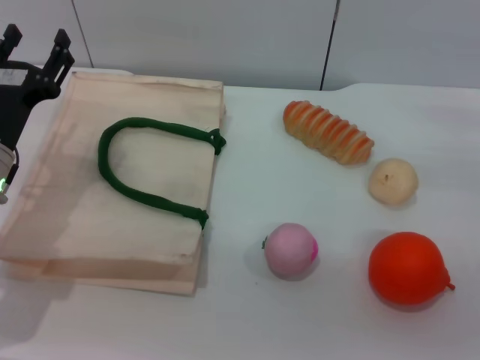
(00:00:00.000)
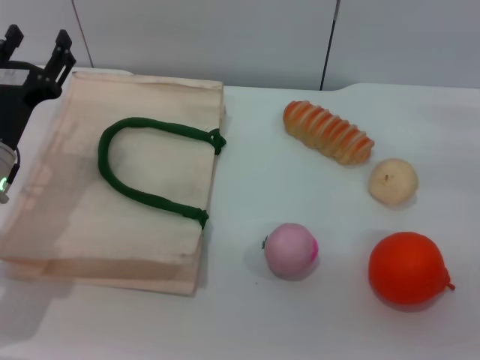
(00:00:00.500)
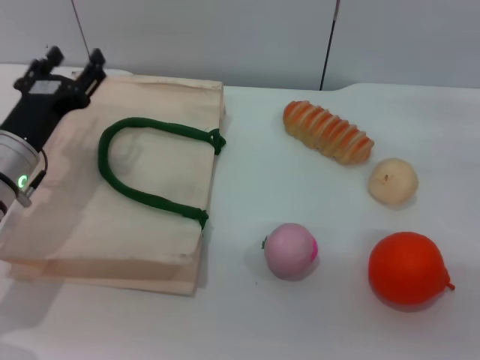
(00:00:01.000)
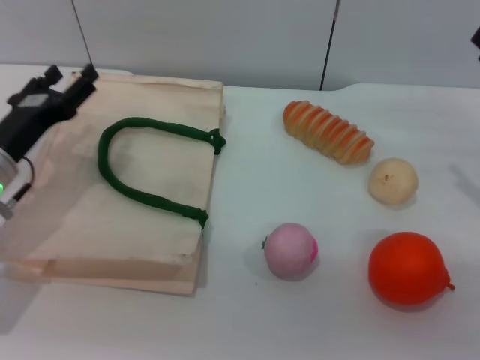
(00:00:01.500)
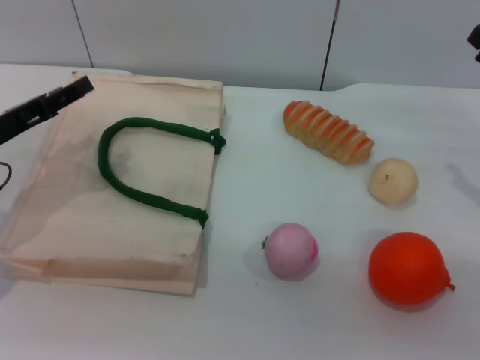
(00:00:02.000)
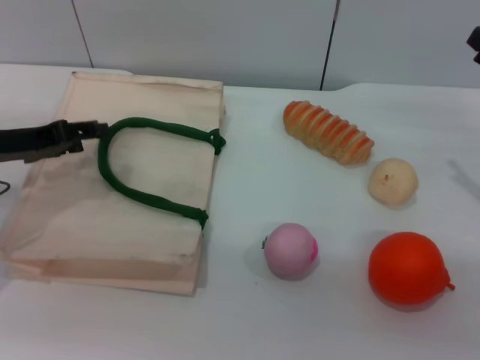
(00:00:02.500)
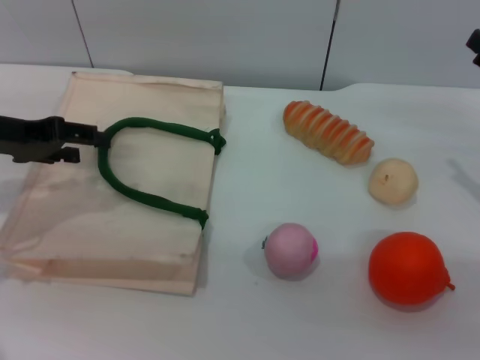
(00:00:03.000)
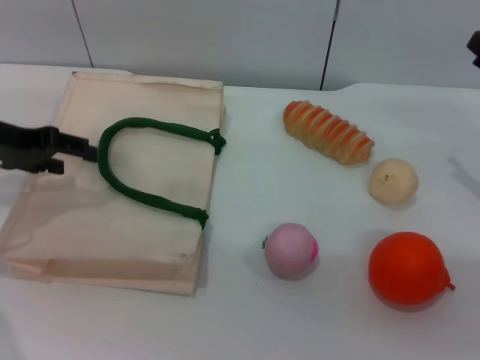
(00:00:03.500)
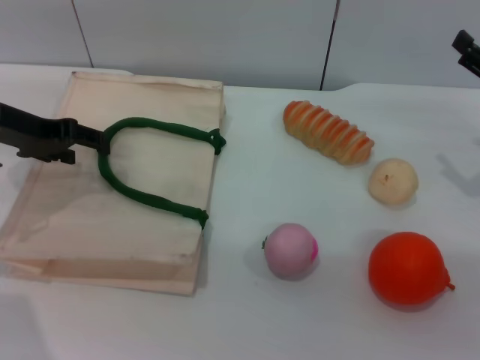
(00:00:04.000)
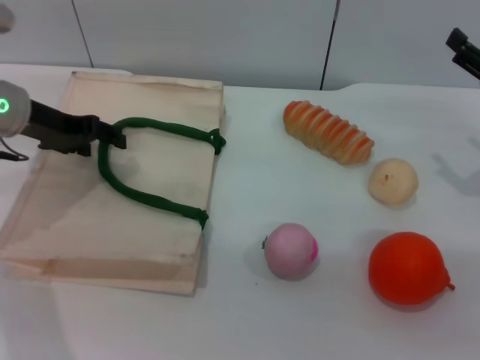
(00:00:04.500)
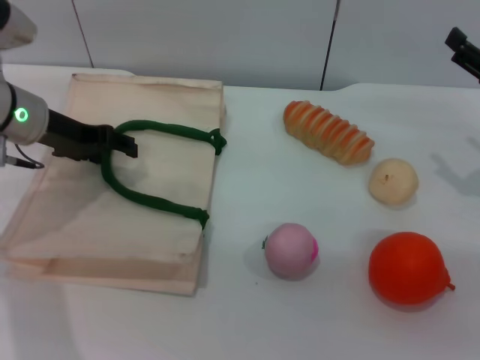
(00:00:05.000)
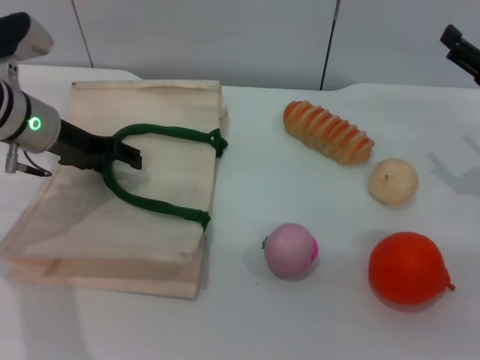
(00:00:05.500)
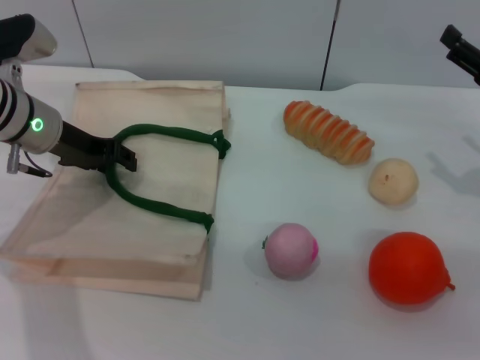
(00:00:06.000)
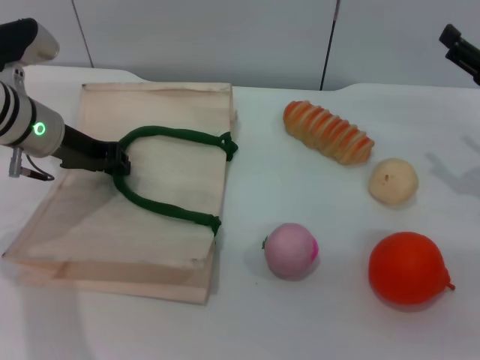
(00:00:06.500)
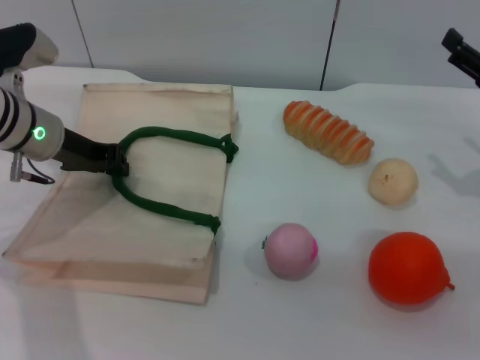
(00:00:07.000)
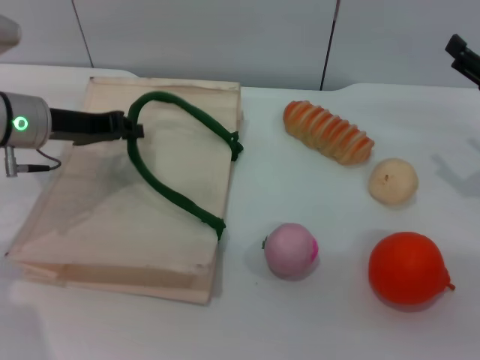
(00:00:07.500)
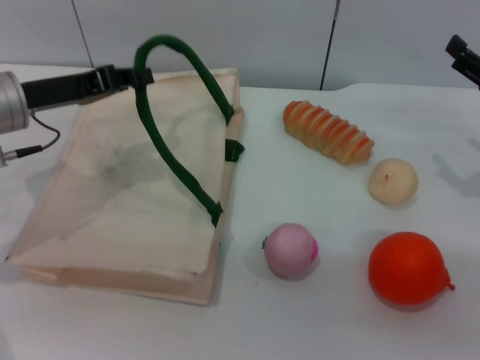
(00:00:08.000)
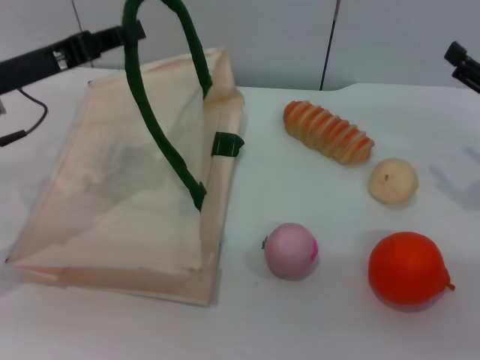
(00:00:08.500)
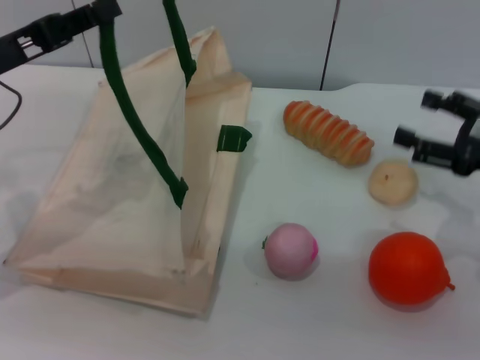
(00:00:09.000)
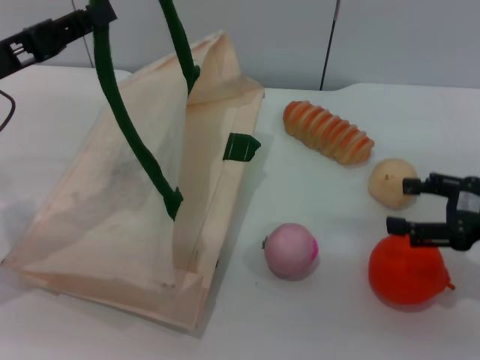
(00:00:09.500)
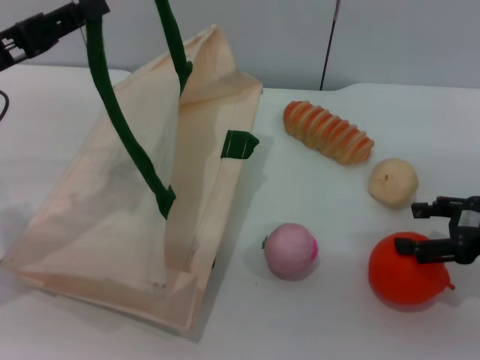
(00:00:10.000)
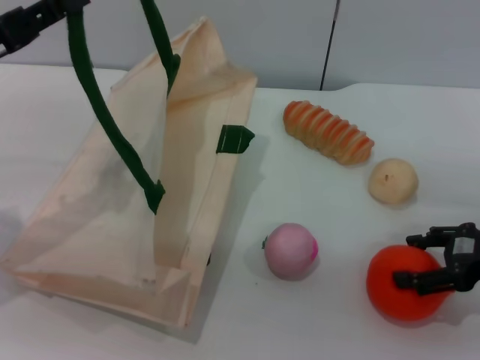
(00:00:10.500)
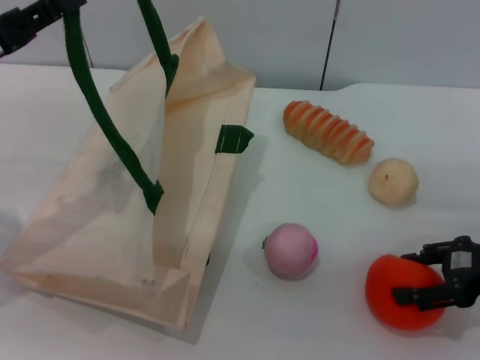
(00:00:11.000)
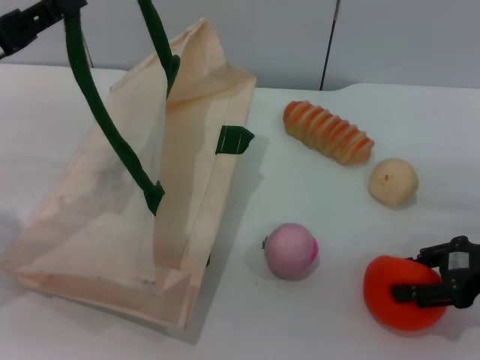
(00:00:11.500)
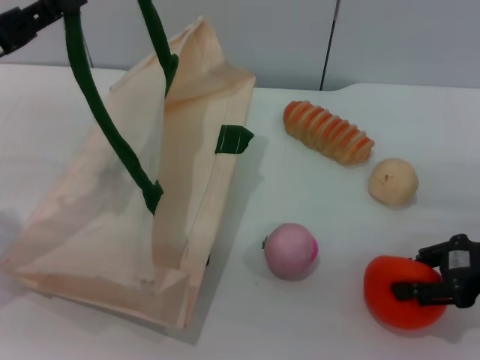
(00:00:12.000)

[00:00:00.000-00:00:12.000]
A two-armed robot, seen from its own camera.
Task of the whole recording: pick up the orange and peach from the table and place it in the white handbag.
Step, 00:00:00.000 to 00:00:08.000: Lift the woven bag with the left gripper to open it.
00:00:00.000 to 00:00:02.000: The left gripper shifts roughly 5 cm to the left.
00:00:02.000 to 00:00:04.000: The left gripper goes about 10 cm upward and forward.
00:00:04.000 to 00:00:06.000: The left gripper ends up approximately 5 cm from where it was.
00:00:06.000 to 00:00:08.000: The left gripper changes place by about 5 cm, and closes.
00:00:08.000 to 00:00:10.000: The left gripper ends up about 5 cm from where it was.
00:00:10.000 to 00:00:12.000: The right gripper closes.

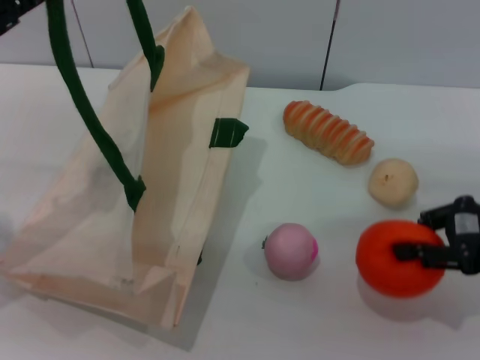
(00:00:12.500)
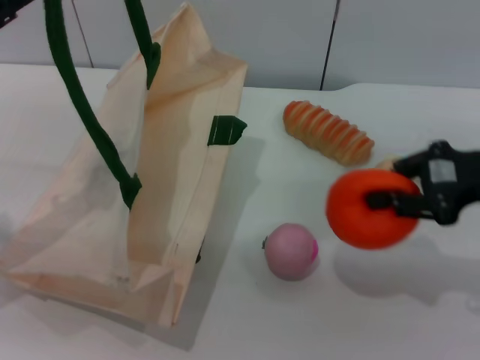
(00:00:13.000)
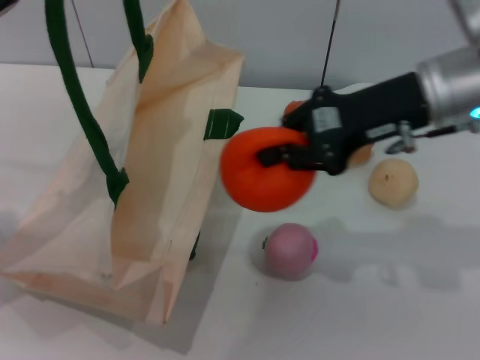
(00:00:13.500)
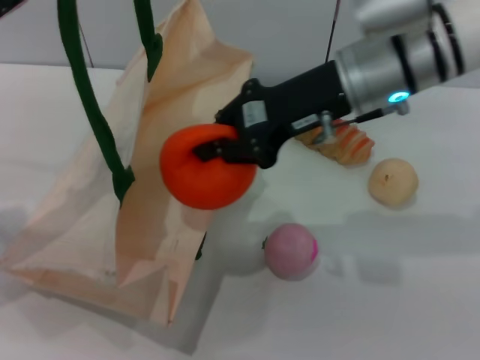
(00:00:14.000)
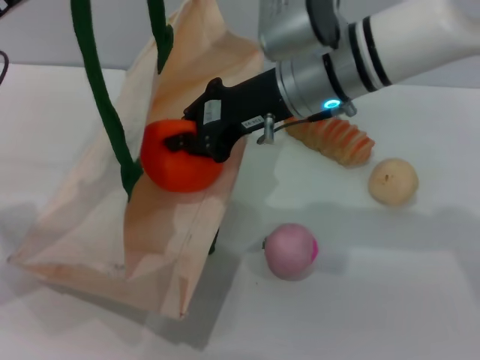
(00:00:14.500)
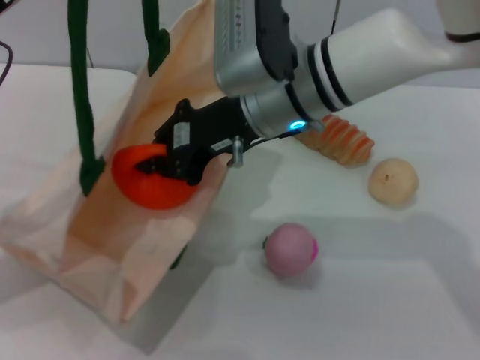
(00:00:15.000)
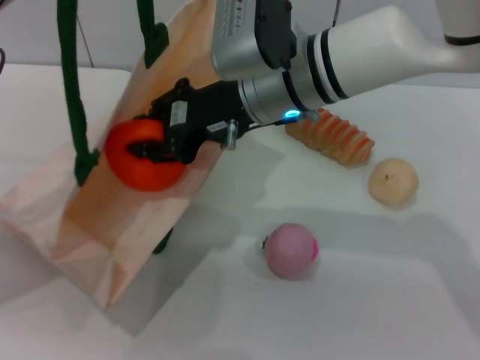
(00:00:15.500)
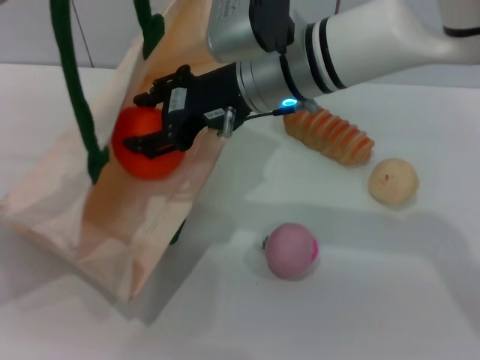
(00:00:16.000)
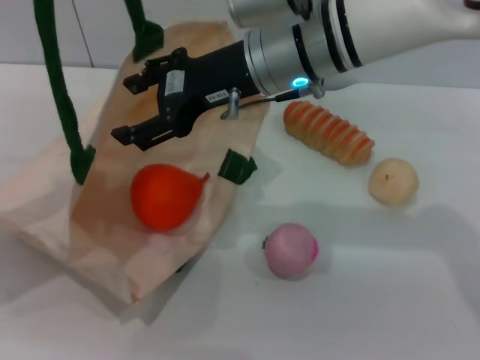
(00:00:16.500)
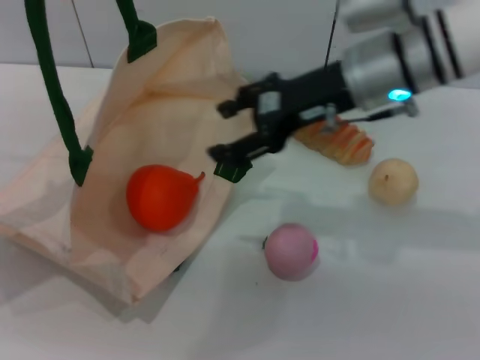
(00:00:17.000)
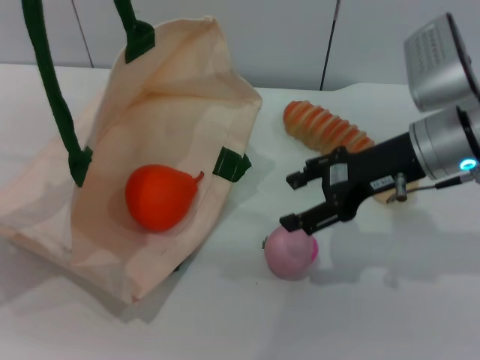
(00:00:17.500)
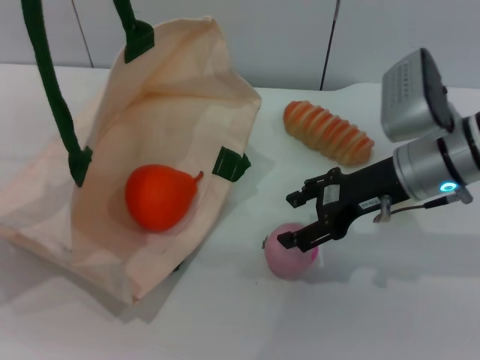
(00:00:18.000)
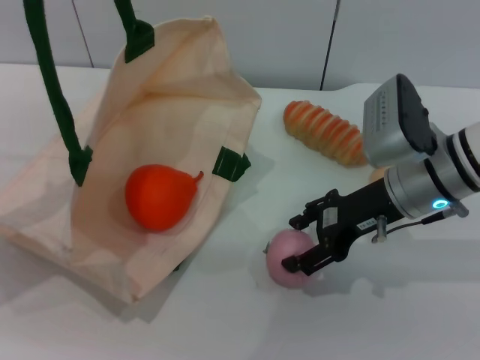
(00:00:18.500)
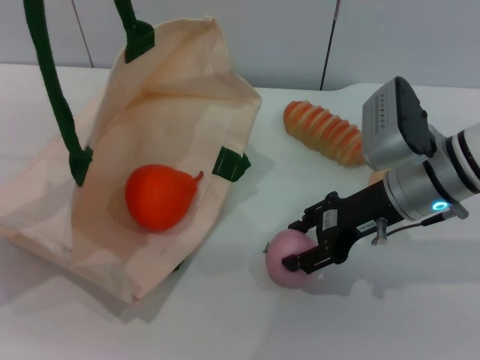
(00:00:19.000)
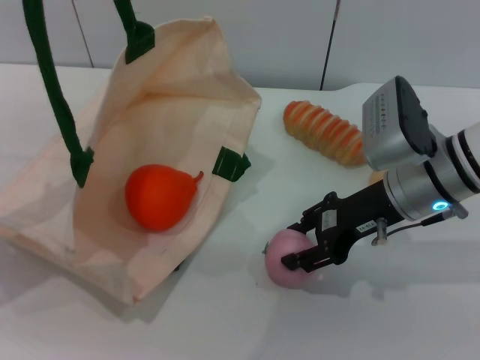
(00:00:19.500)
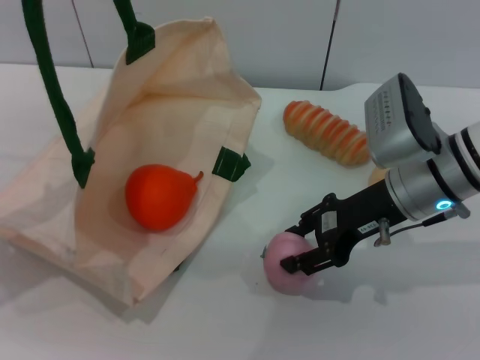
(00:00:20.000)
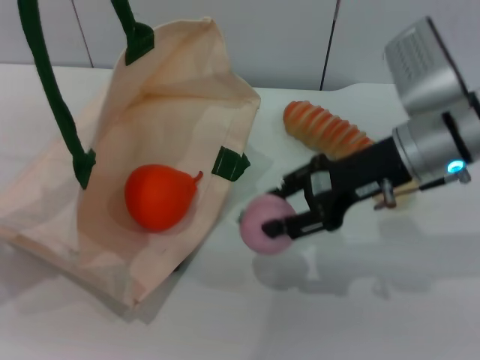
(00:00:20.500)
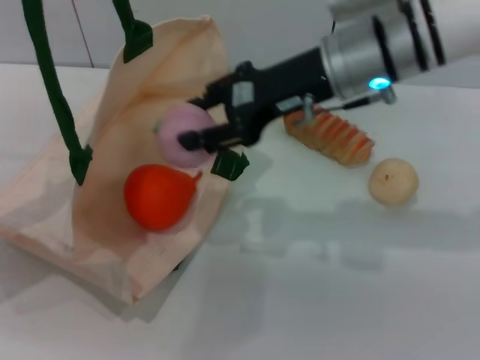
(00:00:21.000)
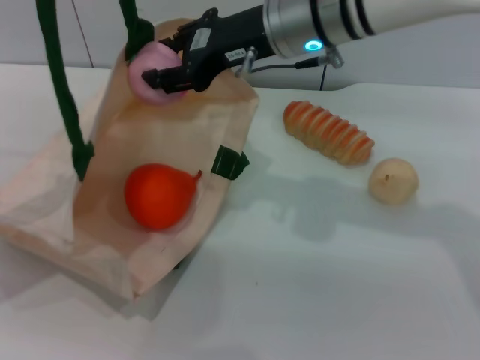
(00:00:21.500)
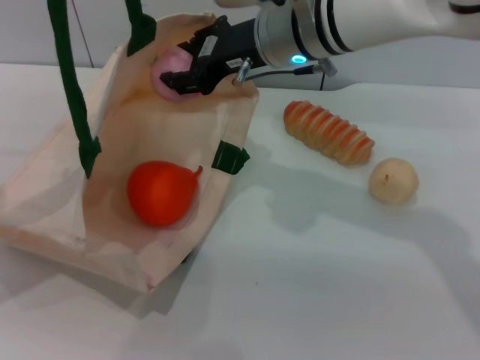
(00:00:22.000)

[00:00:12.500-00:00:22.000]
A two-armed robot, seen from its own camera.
Task of the whole recording: pick up the orange and peach from the table and place it in the white handbag.
Step, 00:00:13.000 to 00:00:16.500: Place the orange into the woven bag with the right gripper.
Step, 00:00:17.000 to 00:00:20.000: Pick up the peach with the right gripper.
00:00:12.500 to 00:00:14.500: The right gripper shifts approximately 25 cm to the left, and closes up.
00:00:14.500 to 00:00:16.500: The right gripper opens up.
00:00:16.500 to 00:00:18.000: The right gripper shifts about 15 cm to the right and downward.
00:00:18.000 to 00:00:20.000: The grippers make only small movements.
00:00:20.000 to 00:00:22.000: The right gripper goes about 15 cm to the left, upward and forward.

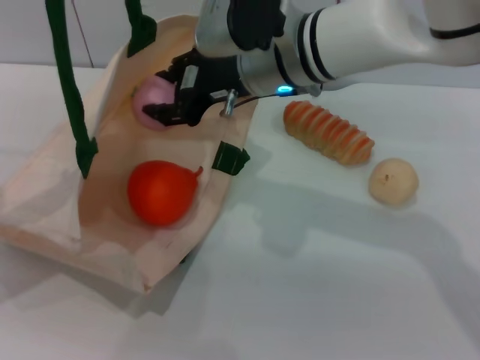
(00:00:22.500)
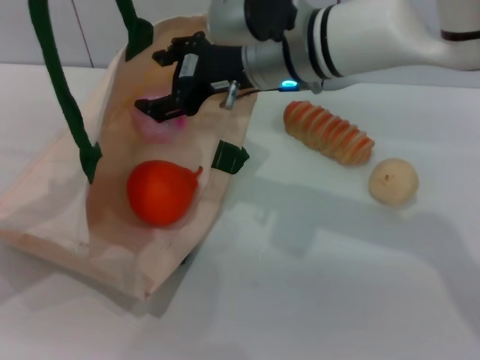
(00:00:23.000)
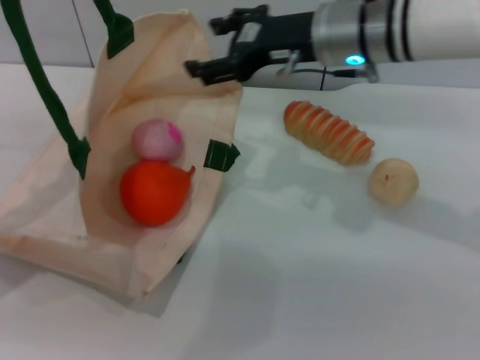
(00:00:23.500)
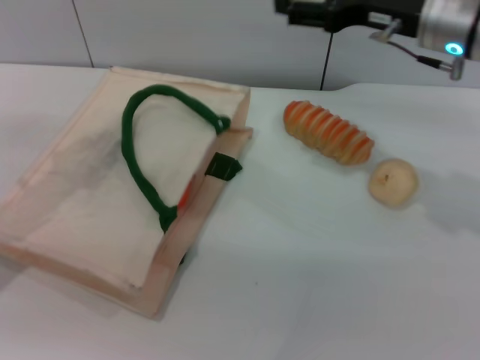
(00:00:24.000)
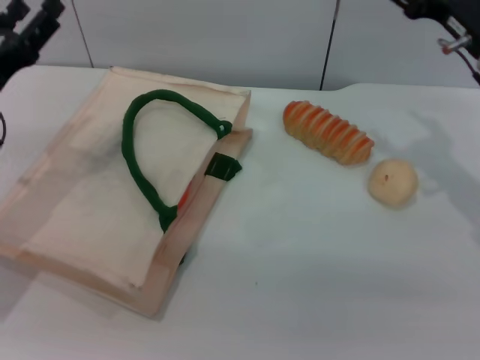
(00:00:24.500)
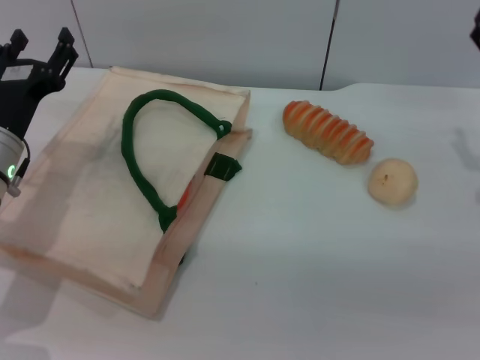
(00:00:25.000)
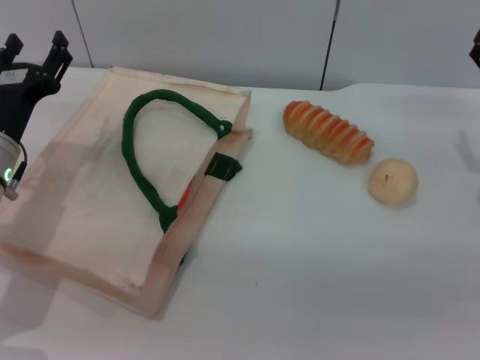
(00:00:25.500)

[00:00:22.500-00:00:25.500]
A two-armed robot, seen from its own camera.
Task of the whole recording: pick up the orange and peach from the table and place it in the white handbag.
Step, 00:00:23.500 to 00:00:24.000: Lower the woven bag with the left gripper to close it.
00:00:22.500 to 00:00:24.000: The right gripper shifts approximately 15 cm to the right, and opens up.
00:00:24.000 to 00:00:25.500: The left gripper goes some 10 cm downward and to the right, and opens up; the right gripper goes roughly 15 cm downward, to the right and backward.
